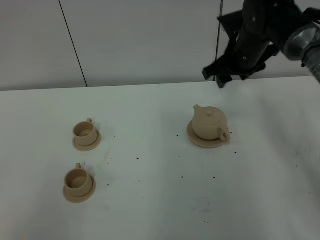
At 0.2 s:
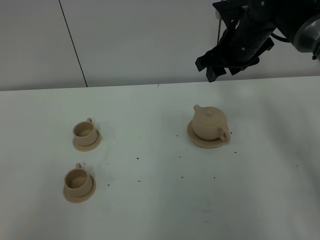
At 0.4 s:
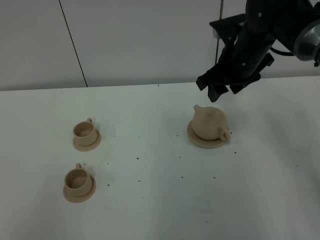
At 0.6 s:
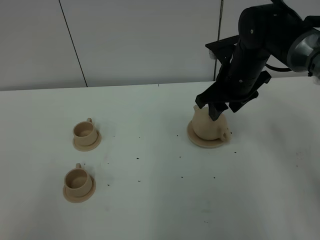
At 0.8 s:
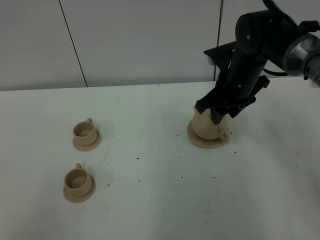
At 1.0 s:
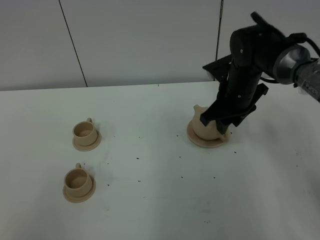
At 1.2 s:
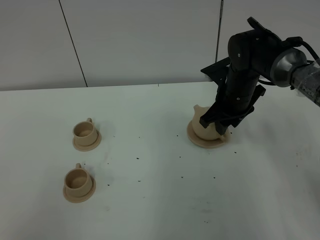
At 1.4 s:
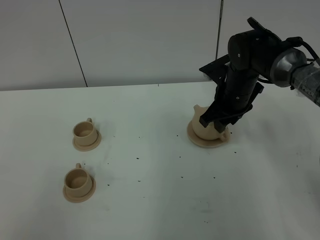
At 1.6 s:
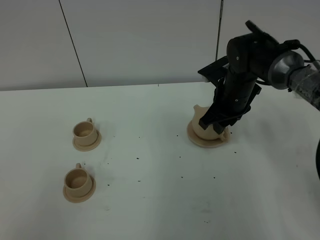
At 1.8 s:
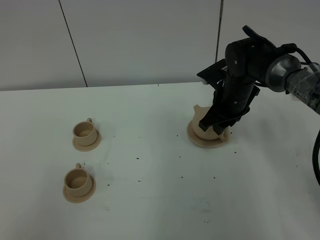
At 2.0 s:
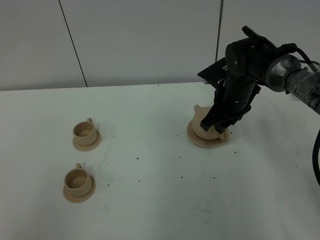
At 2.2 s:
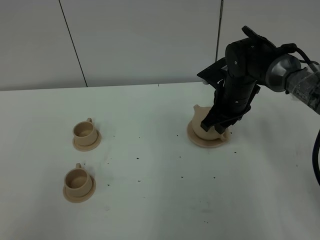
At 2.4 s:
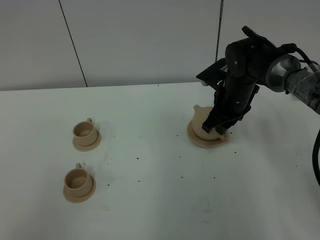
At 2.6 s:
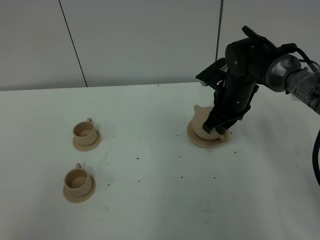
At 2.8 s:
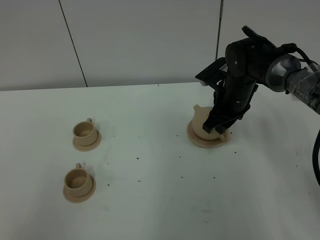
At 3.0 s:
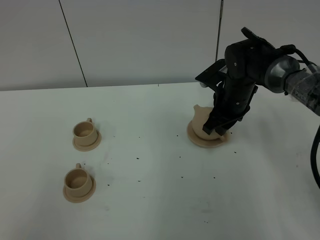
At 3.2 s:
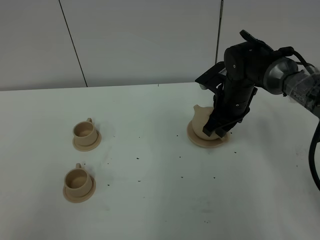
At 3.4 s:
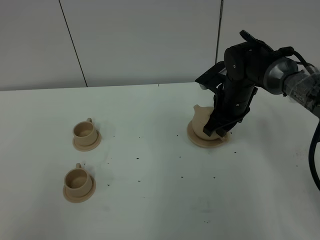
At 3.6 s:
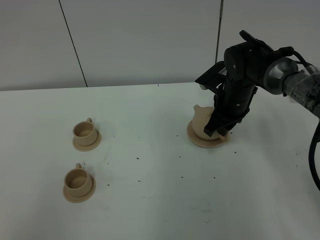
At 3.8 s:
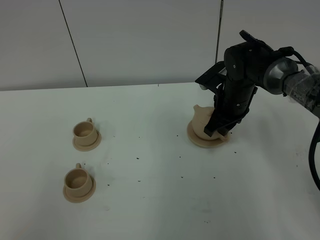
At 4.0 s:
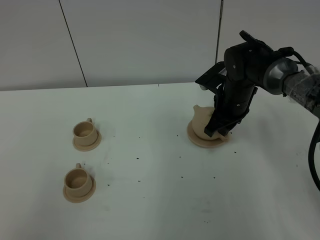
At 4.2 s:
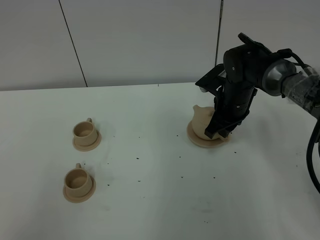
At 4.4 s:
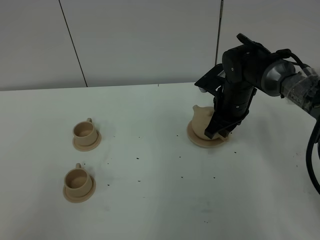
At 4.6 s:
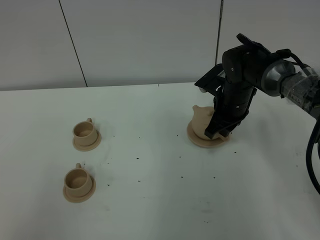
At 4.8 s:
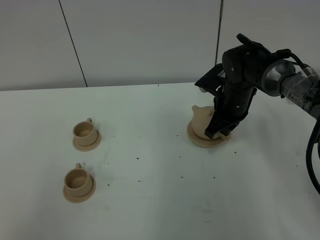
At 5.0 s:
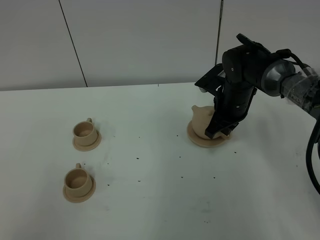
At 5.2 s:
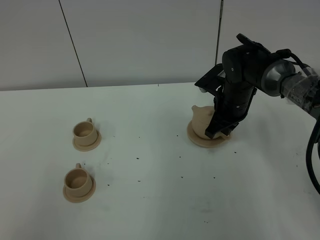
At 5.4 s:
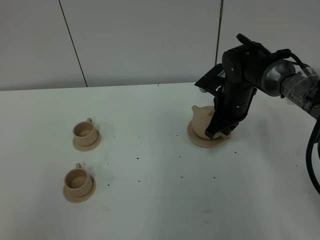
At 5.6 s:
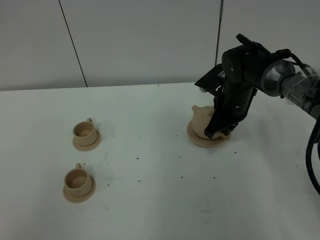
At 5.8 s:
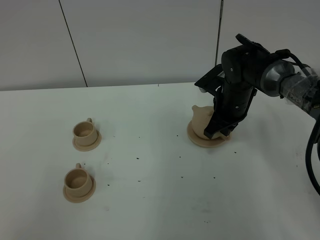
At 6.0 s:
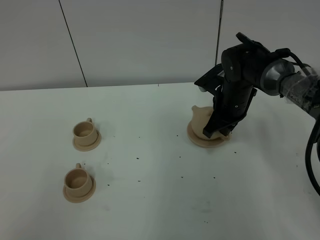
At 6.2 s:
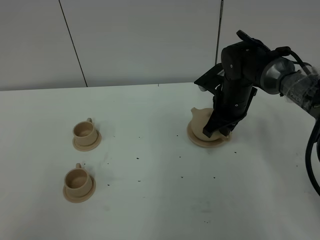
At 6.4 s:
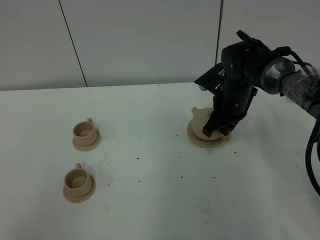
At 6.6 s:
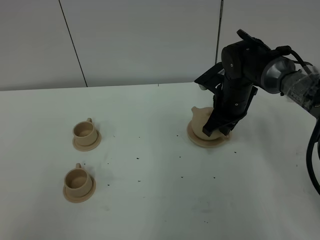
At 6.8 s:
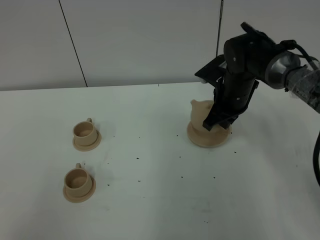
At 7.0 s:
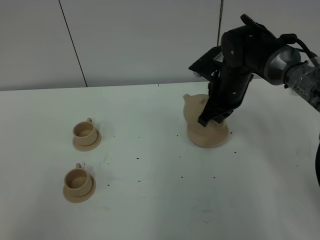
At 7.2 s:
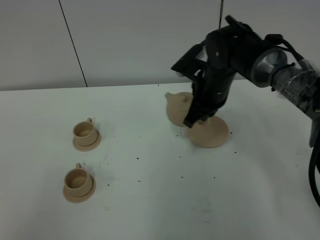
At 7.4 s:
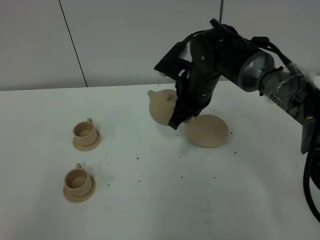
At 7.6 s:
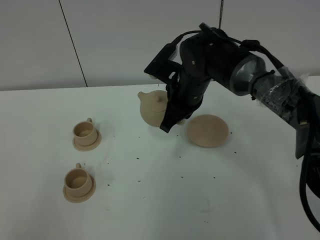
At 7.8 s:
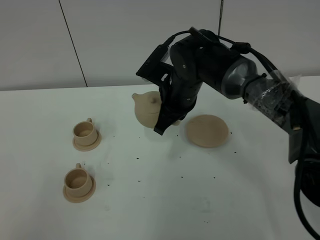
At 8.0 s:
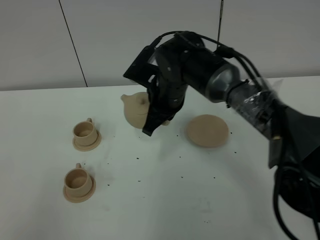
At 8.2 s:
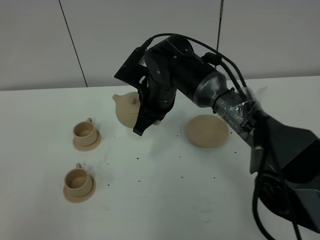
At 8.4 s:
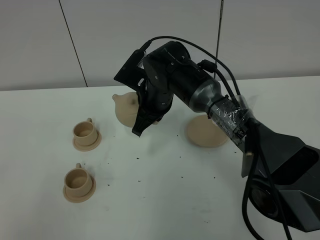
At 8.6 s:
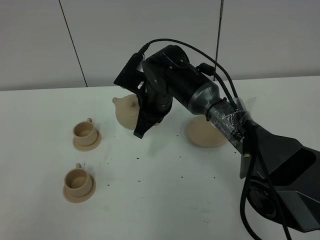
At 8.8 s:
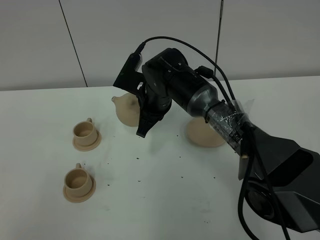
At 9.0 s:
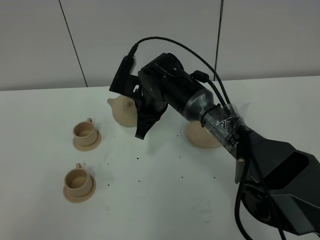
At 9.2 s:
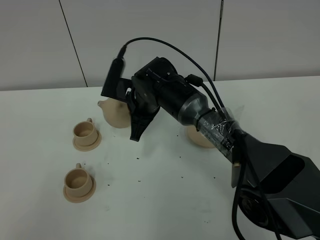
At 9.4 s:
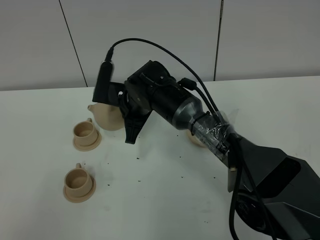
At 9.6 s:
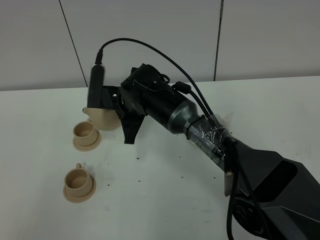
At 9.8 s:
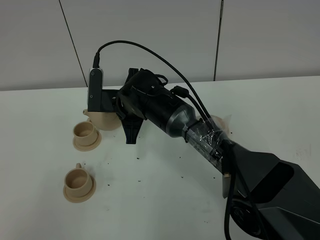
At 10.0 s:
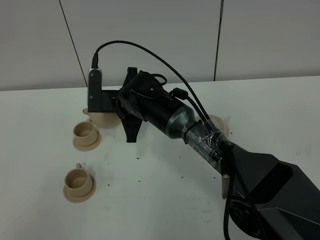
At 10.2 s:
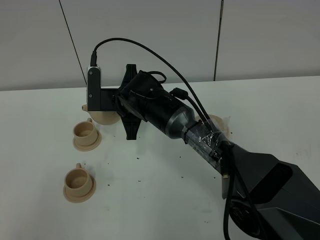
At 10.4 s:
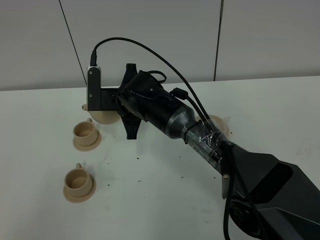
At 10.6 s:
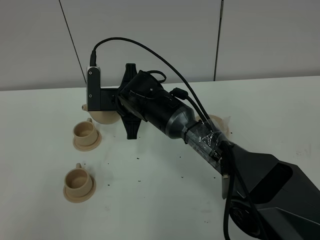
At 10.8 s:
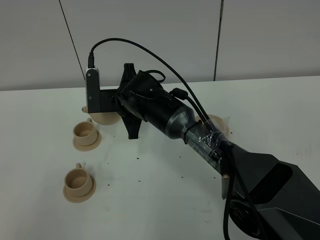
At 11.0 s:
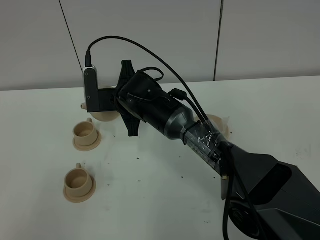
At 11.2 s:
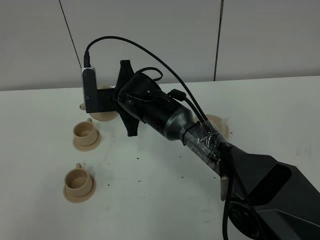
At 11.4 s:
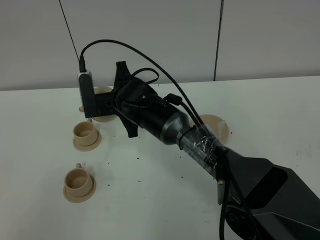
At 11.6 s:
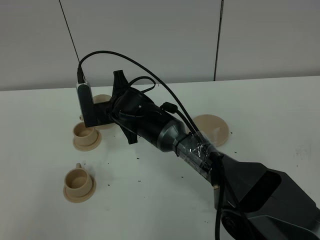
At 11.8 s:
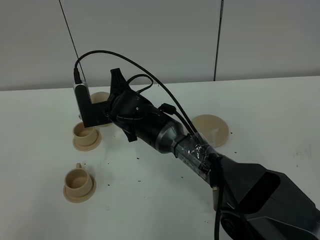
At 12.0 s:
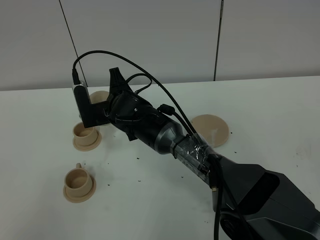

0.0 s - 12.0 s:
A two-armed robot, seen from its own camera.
Task of the whole recording: grasp the brown teapot and pour the tea into the two brown teacups one by one, put the brown teapot back in its original place.
Step, 0.0 s - 7.0 s: Pick up the teapot with the right gripper.
0.0 s - 1.6 s: The right gripper heads downward, covering roughly 10 cm.
1.6 s - 3.0 s: The grippers make only small movements.
3.0 s - 4.4 s: The two grippers keep their place.
4.4 s - 6.0 s: The right gripper closes.
6.0 s - 7.6 s: The right gripper travels to the left and upward by roughly 10 cm.
7.6 s - 9.0 s: The right gripper is displaced to the left by some 5 cm.
10.4 s - 12.0 s: There are only small adjustments of the grippers.

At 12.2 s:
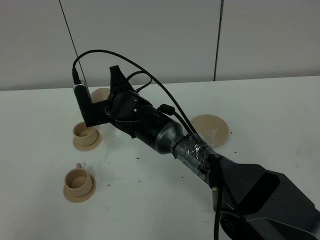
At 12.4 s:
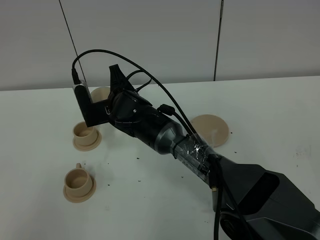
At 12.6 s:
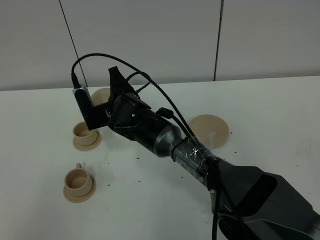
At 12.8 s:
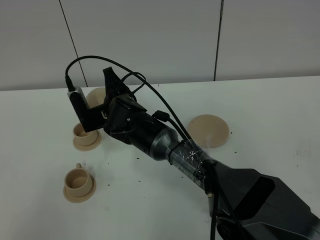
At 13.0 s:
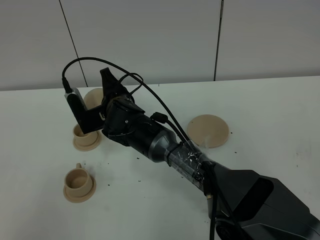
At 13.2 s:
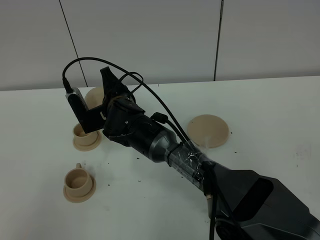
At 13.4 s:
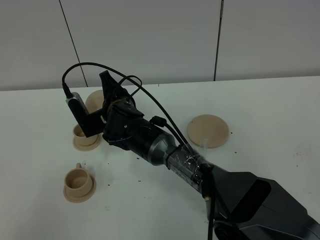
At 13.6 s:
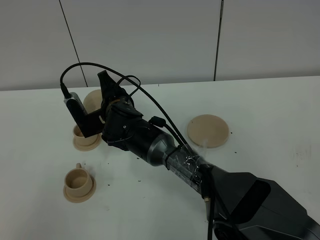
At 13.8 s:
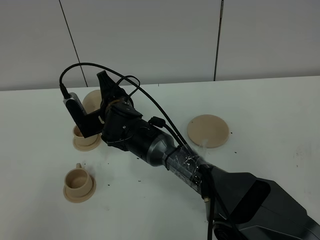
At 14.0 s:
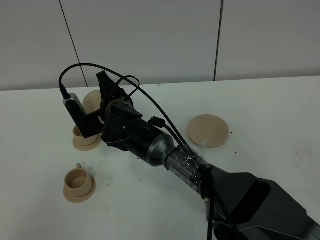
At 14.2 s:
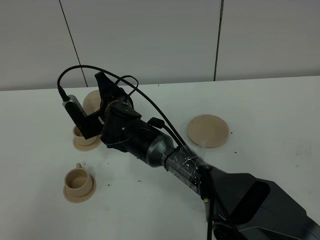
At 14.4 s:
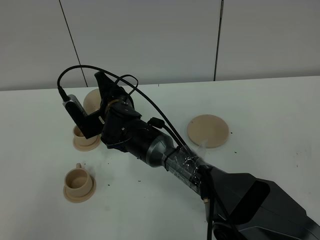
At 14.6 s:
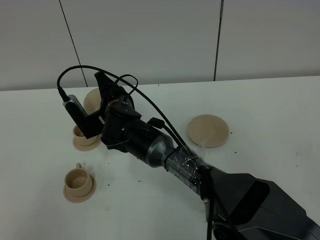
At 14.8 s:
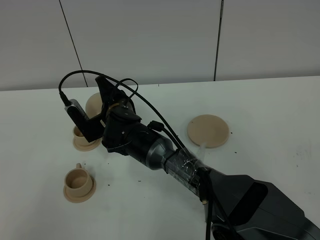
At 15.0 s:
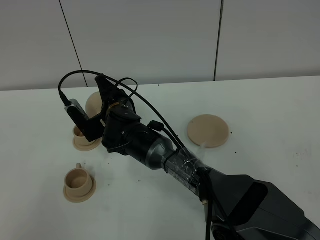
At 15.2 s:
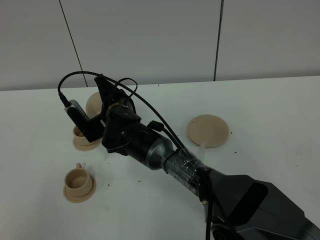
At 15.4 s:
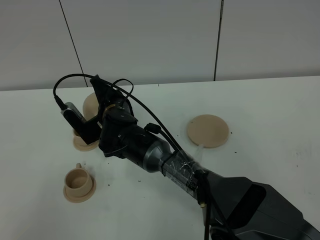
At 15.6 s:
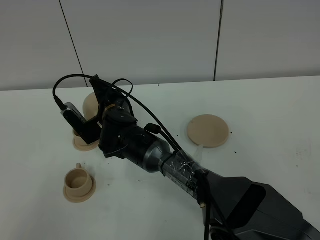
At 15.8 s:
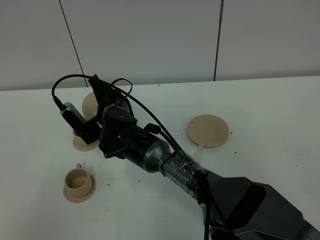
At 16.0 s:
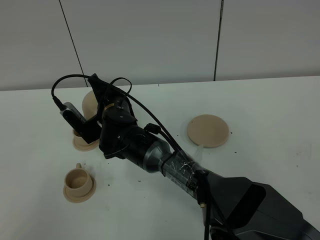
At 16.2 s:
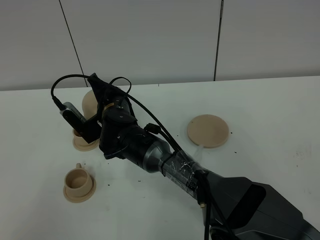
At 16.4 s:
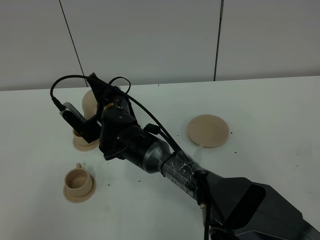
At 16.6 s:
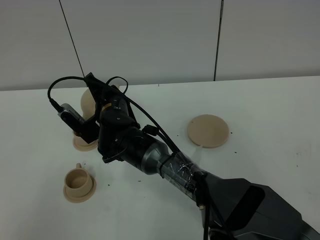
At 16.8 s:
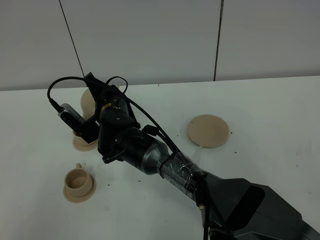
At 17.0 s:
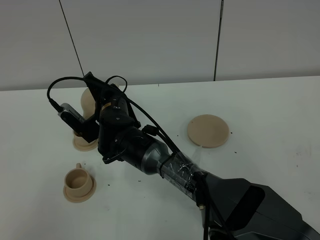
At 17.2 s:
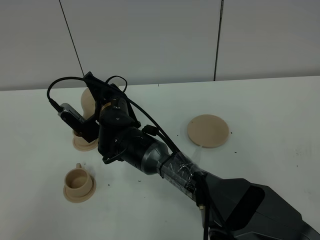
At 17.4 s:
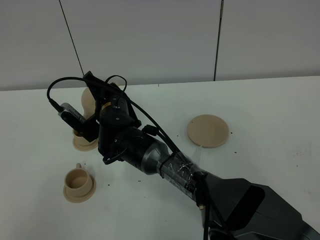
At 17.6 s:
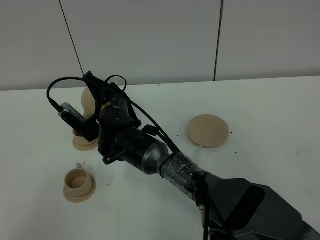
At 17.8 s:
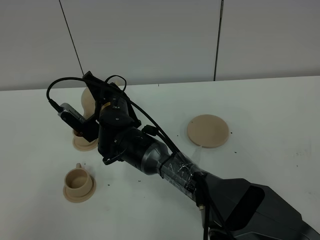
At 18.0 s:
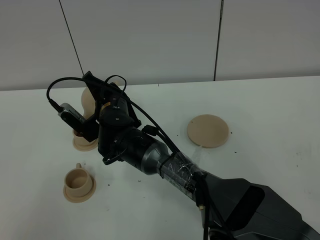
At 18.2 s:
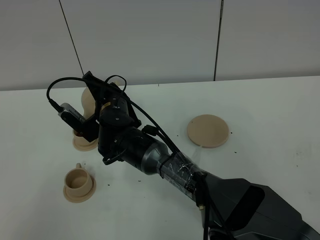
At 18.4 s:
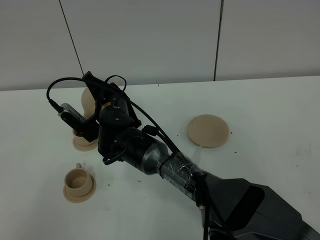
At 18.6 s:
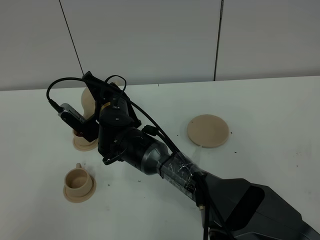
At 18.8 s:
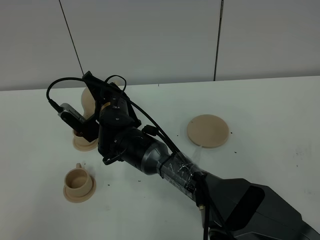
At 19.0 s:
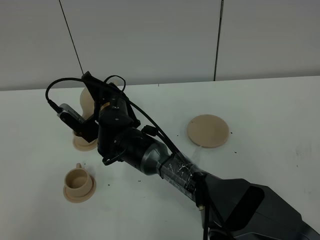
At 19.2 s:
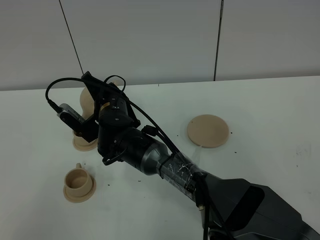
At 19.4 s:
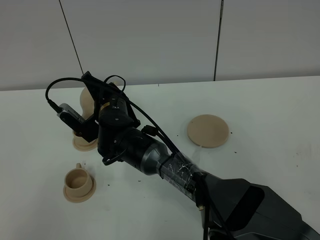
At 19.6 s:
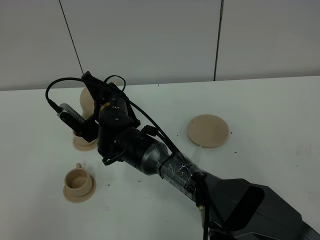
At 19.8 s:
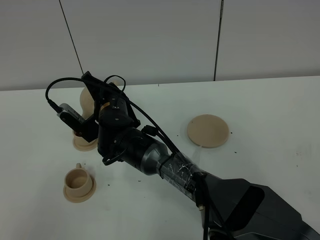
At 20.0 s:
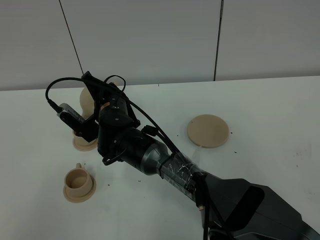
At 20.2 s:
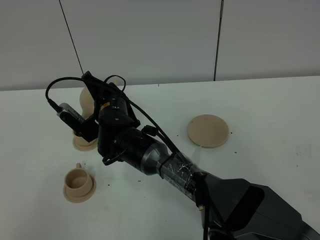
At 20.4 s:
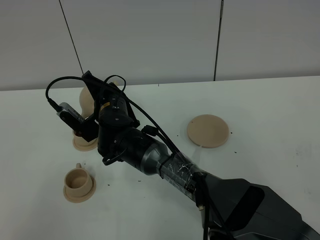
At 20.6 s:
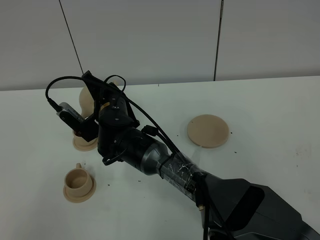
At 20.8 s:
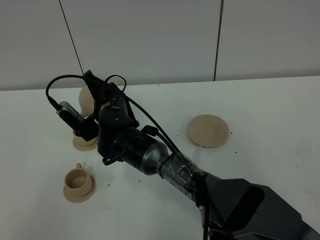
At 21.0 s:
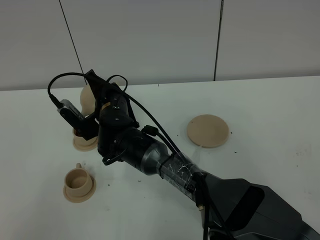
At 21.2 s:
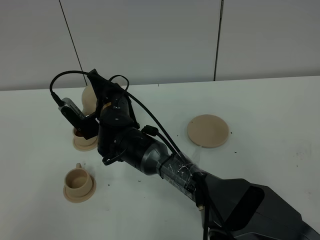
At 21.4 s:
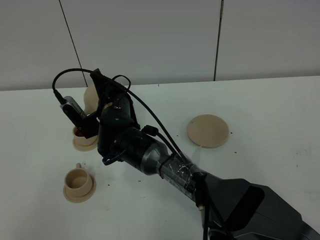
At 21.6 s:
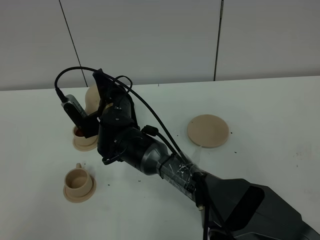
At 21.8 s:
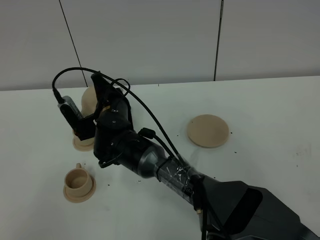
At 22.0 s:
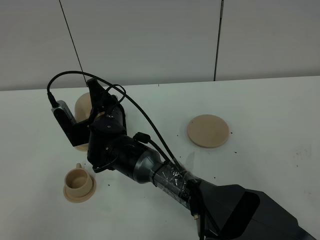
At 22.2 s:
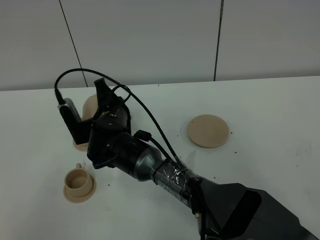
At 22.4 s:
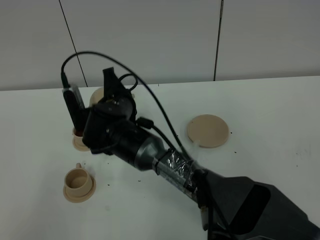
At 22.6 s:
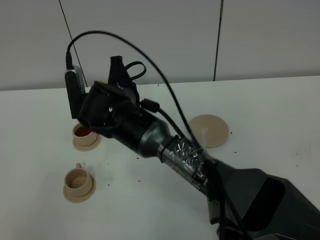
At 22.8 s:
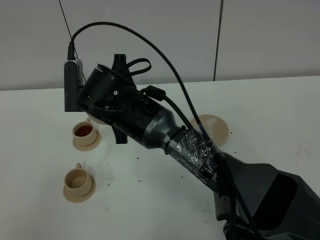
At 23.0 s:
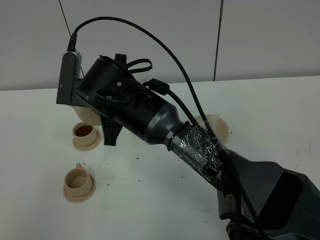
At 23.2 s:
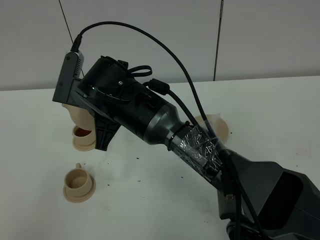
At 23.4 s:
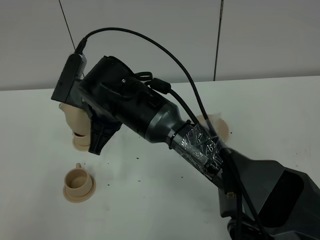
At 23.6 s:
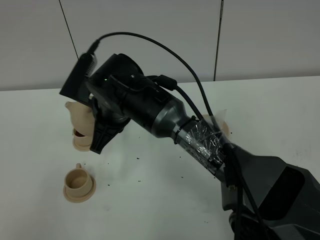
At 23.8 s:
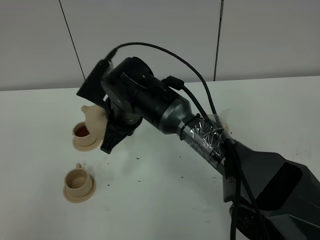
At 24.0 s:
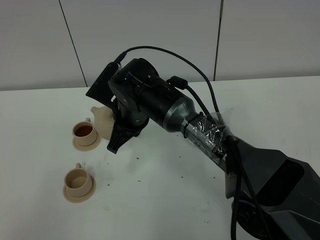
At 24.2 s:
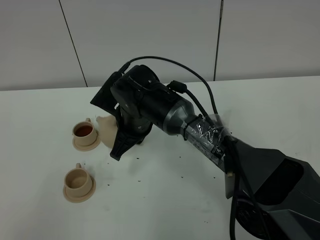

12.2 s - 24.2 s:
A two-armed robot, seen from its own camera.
Task of the whole recording: grasp the brown teapot and pour the tea into the two brown teacups one by one, put the brown teapot back in its original place.
Step, 12.2 s - 21.6 s: Pour tea into the teacup with the right gripper.
12.2 s - 15.2 s: The grippers stay close to where they were, moving slightly.
15.2 s - 16.6 s: There are only small adjustments of the grippers.
16.6 s - 19.8 s: Neither gripper changes place.
19.8 s - 21.2 s: The grippers stay close to where they were, moving slightly.
21.2 s - 22.6 s: The right gripper travels upward by approximately 5 cm.
